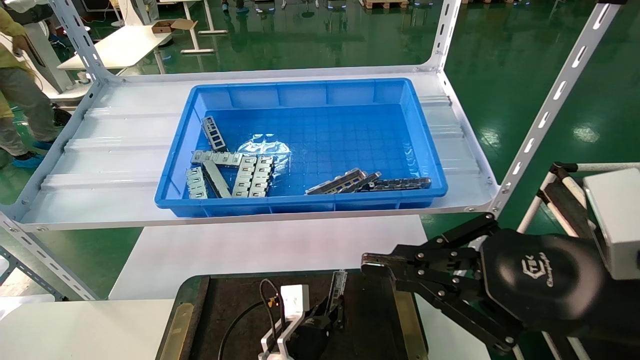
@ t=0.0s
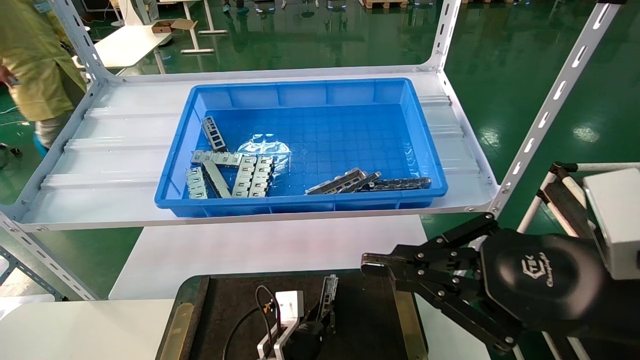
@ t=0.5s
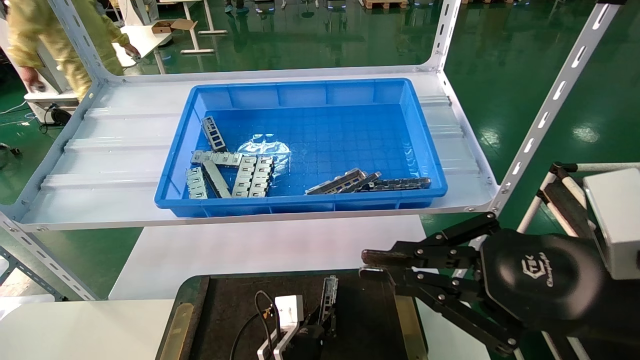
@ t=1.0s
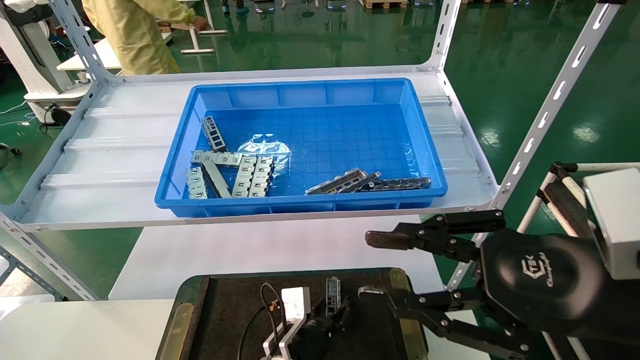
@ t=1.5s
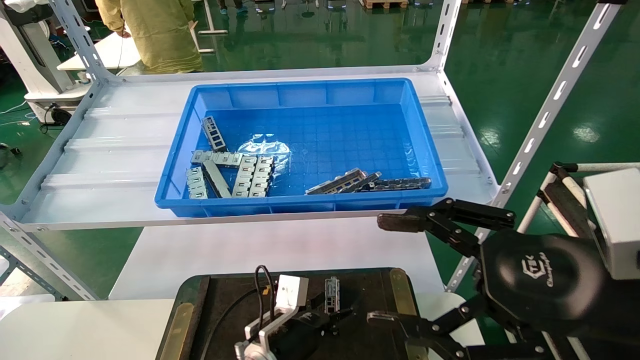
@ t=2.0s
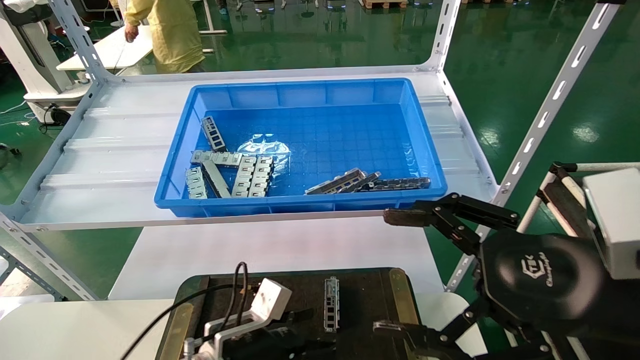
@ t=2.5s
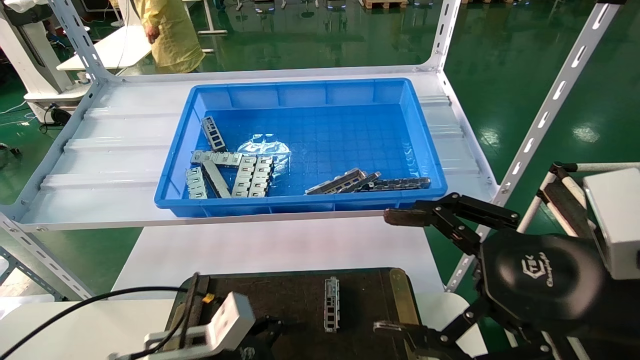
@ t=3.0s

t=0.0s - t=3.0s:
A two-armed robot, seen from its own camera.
Task of the whole recording: Grasp the part with one hand and place it on the black container.
t=0.0s - t=1.5s: The grippers stay close to where they were, moving slightly.
t=1.5s - t=3.0s: The right gripper opens its fingers. Meanwhile the left gripper heads to the left, backward and upward, covering some 20 cm, and opens.
